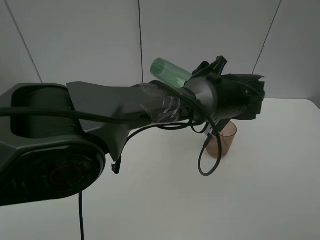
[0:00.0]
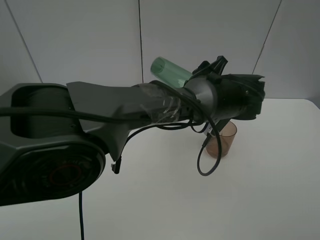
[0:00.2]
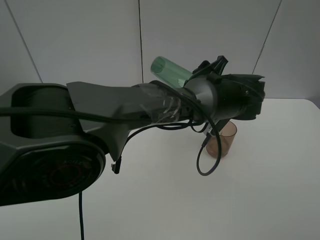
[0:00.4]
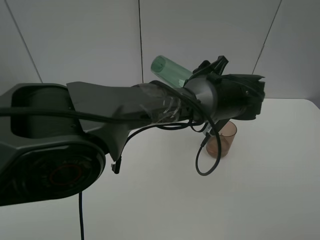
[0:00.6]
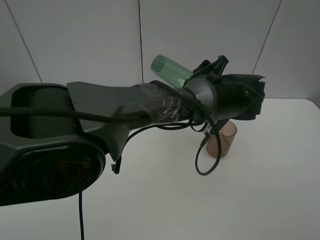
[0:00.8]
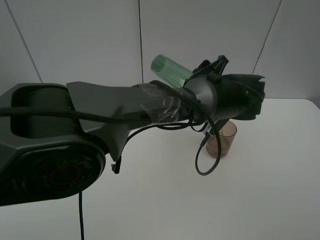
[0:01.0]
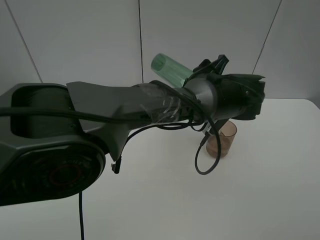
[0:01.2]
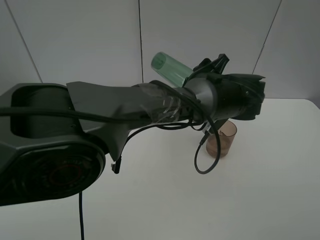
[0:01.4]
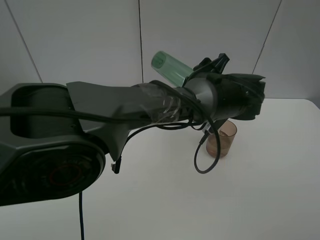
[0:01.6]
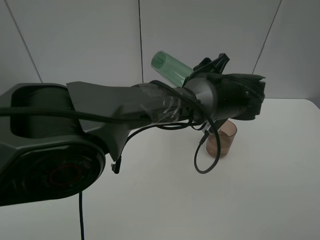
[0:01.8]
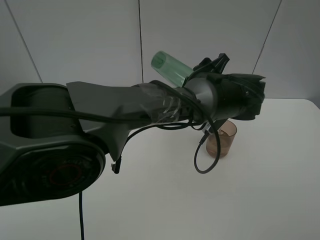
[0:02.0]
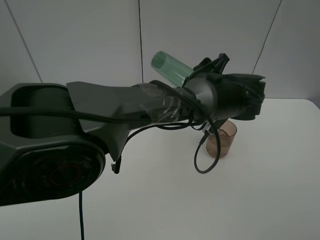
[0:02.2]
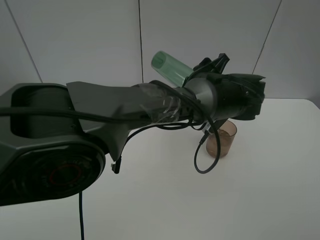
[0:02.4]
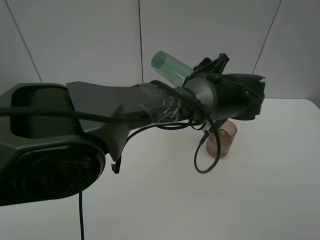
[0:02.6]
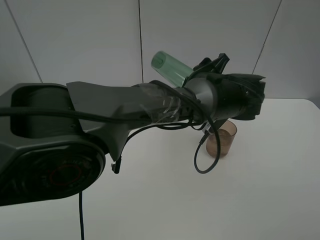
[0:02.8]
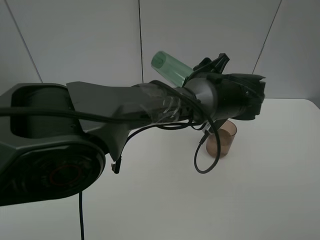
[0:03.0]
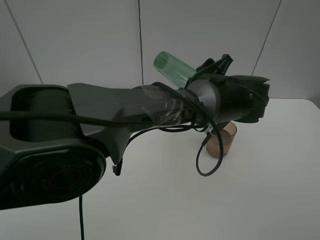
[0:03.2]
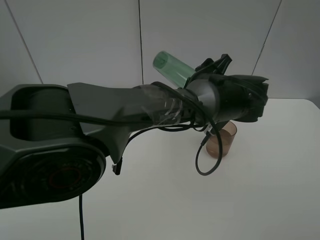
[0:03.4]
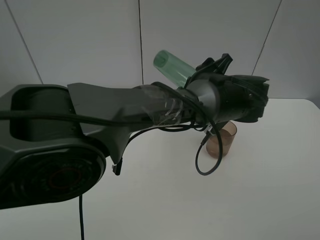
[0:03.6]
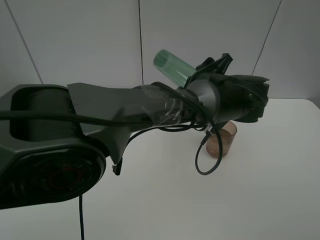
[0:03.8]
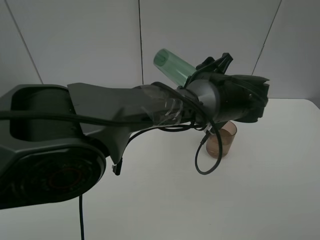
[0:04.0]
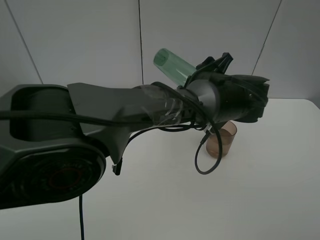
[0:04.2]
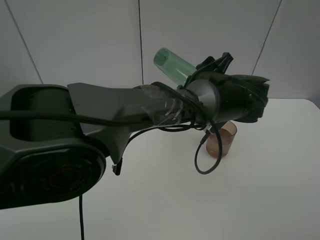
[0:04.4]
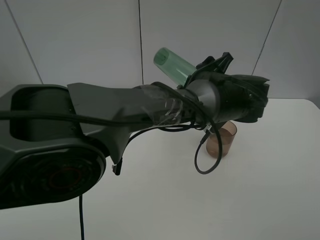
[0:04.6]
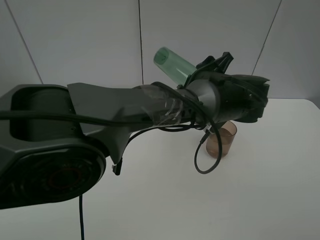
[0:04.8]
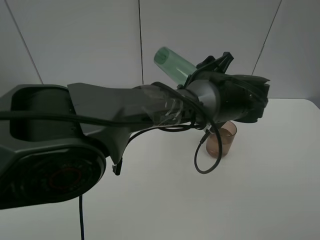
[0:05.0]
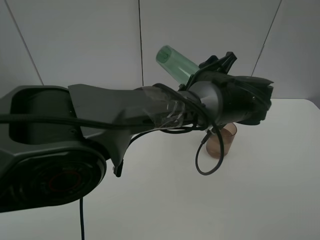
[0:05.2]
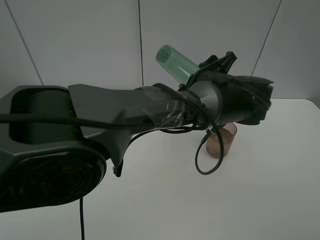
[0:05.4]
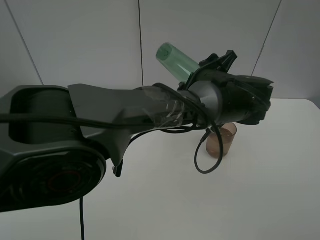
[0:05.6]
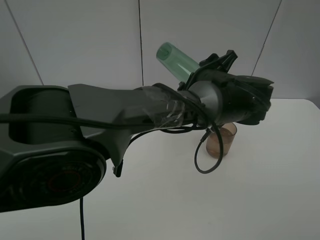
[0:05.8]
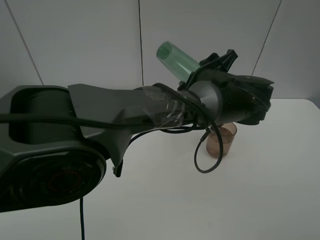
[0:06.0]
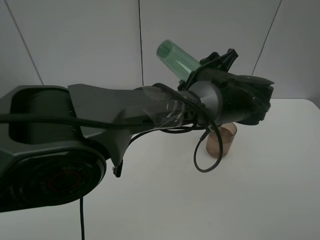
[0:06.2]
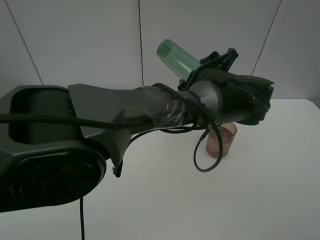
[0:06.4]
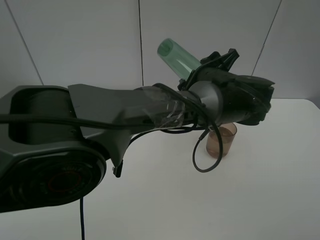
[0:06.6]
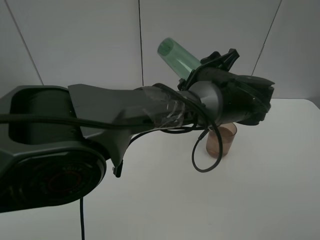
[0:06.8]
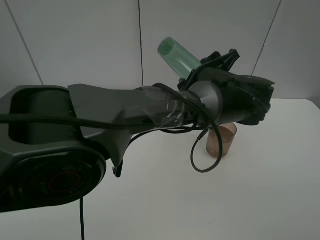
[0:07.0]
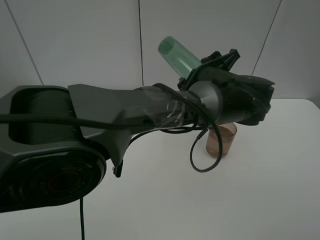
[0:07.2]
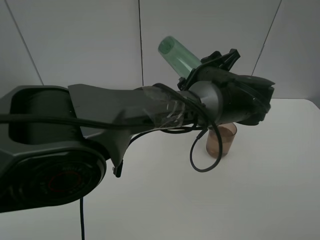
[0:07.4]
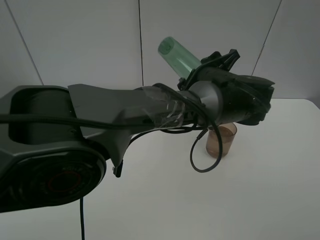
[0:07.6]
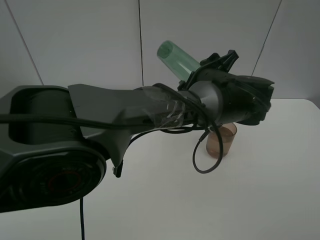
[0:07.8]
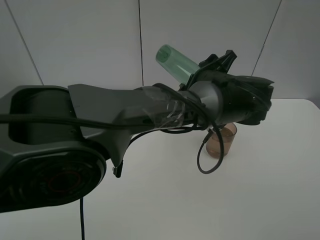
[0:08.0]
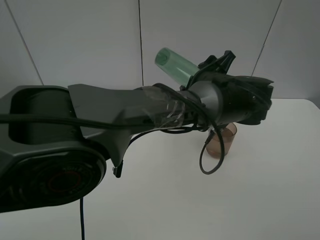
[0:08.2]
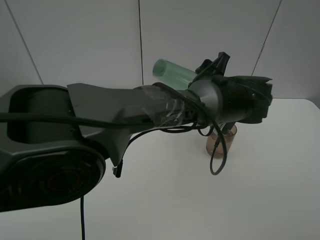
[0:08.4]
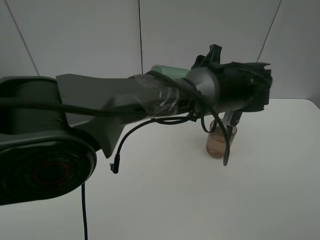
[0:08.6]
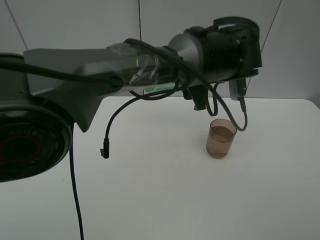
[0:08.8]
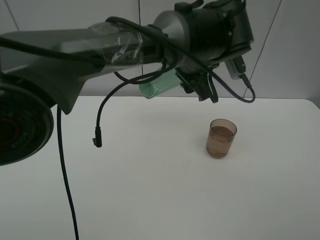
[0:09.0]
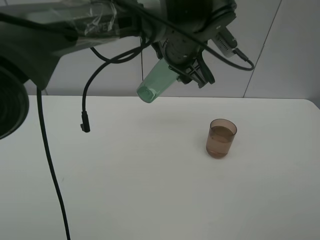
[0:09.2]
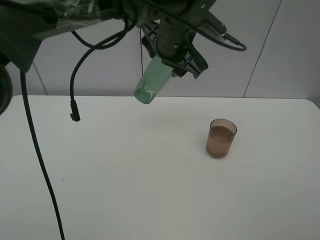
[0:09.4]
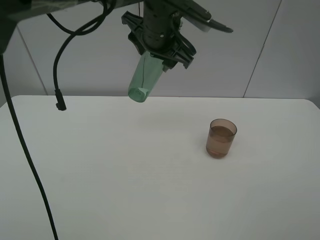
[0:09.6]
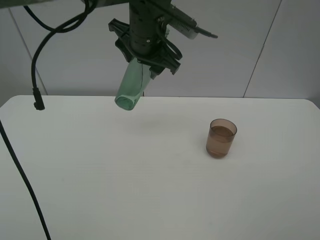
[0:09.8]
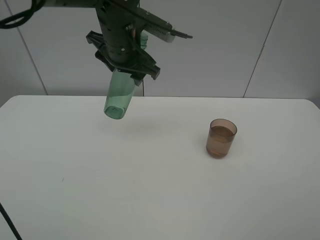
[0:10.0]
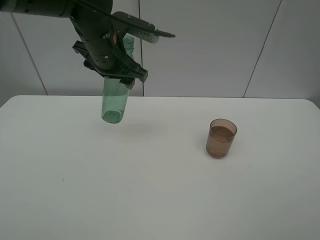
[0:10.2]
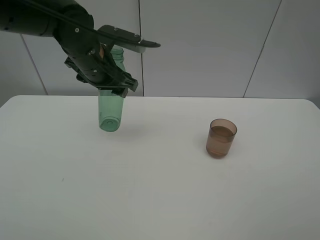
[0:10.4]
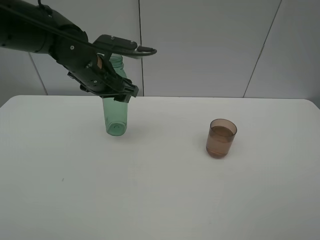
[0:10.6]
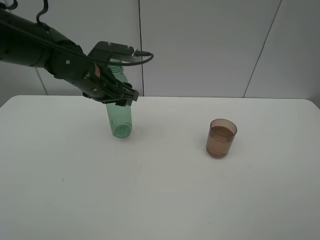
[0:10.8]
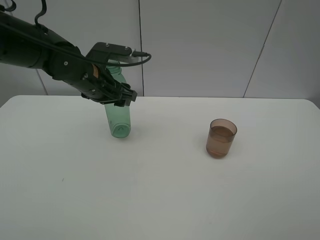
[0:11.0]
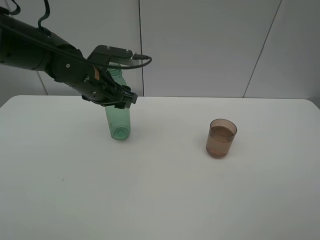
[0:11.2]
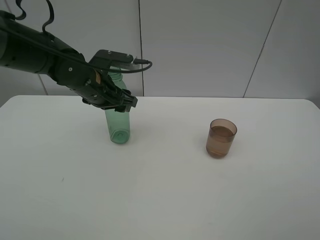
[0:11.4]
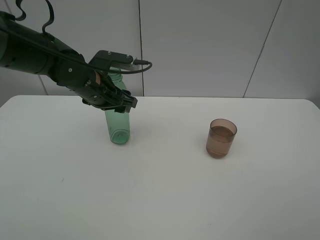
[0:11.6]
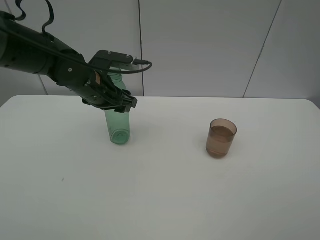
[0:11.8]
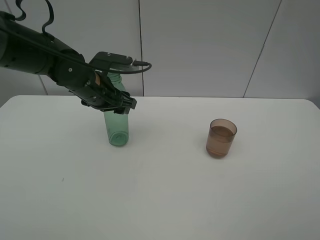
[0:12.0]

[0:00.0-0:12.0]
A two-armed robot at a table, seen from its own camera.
Task of the whole recording: pick up the bottle filled with water and pour it into the pink cup.
Step, 0:00.0 to 0:08.2: Pour water from green bottle to pink cup with the left gripper.
0:00.0 to 0:03.0: Both grippers stay about where they are.
0:03.0 to 0:04.4: The two grippers keep their place.
0:04.4 to 0:06.0: Both grippers stay put.
0:06.0 to 0:07.6: Neither gripper changes place.
0:07.6 to 0:09.0: The left gripper goes about 5 cm upward.
0:09.0 to 0:10.4: The left gripper heads to the left, covering some 20 cm.
0:10.4 to 0:12.0: The left gripper goes some 5 cm downward.

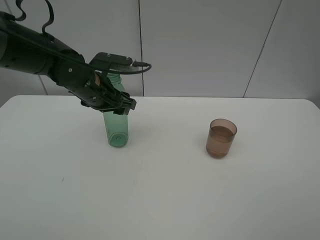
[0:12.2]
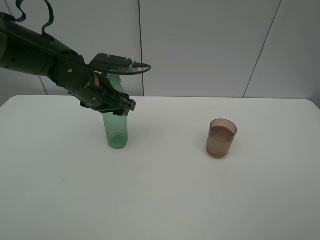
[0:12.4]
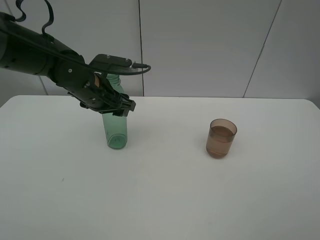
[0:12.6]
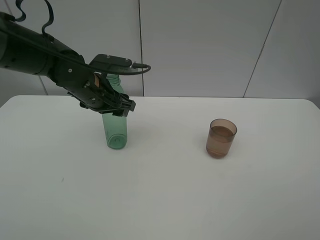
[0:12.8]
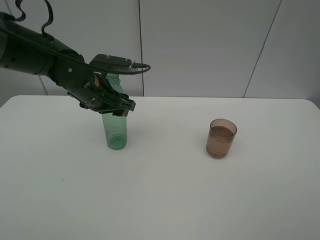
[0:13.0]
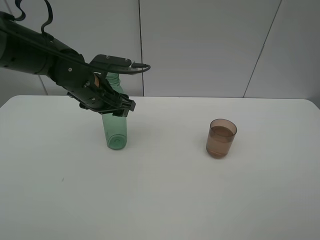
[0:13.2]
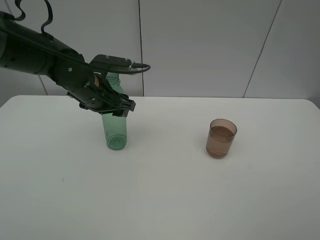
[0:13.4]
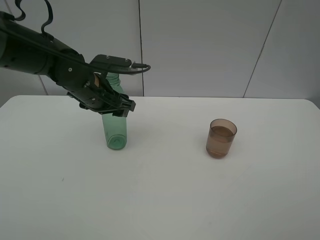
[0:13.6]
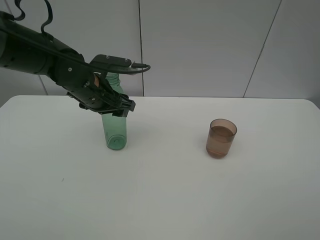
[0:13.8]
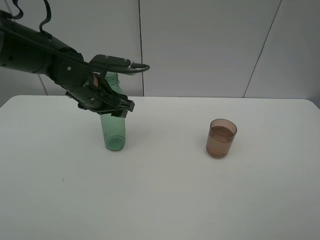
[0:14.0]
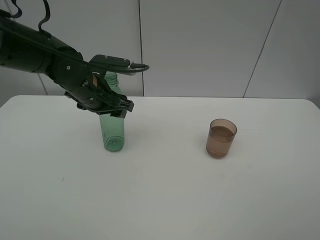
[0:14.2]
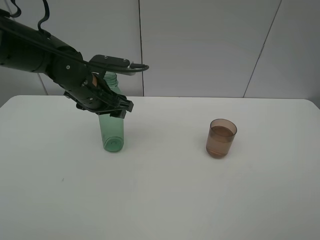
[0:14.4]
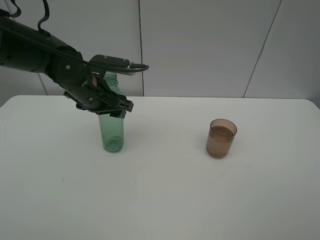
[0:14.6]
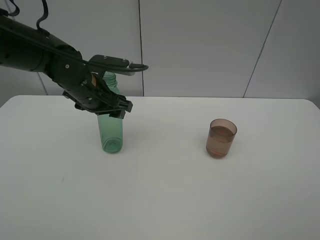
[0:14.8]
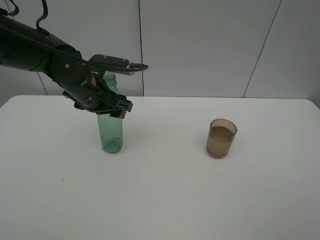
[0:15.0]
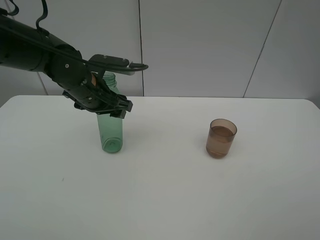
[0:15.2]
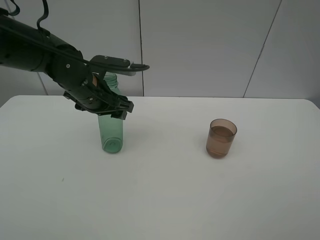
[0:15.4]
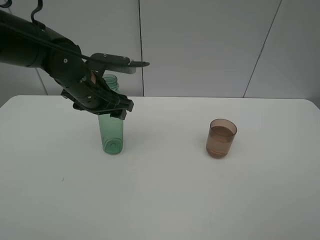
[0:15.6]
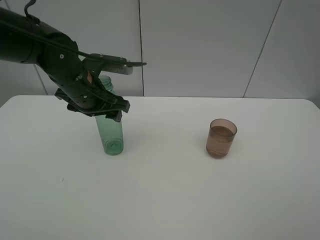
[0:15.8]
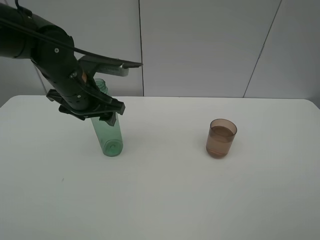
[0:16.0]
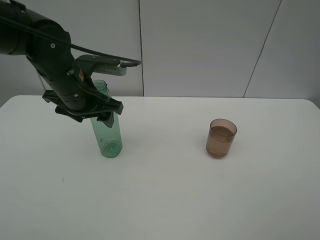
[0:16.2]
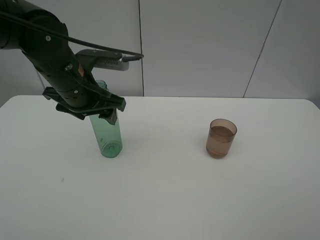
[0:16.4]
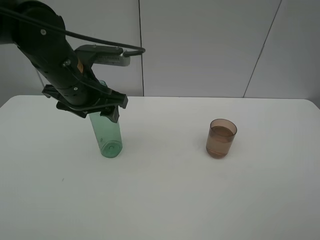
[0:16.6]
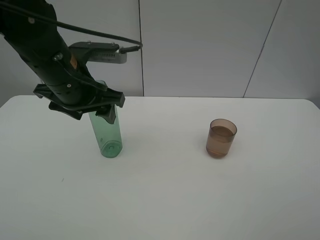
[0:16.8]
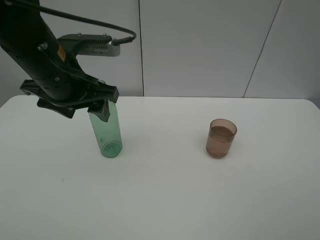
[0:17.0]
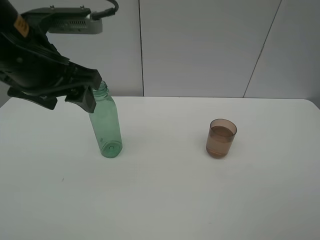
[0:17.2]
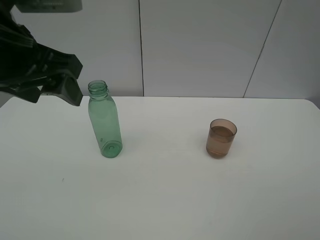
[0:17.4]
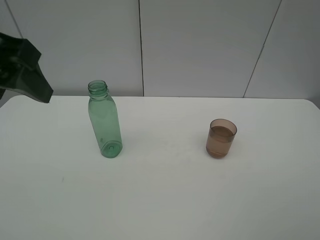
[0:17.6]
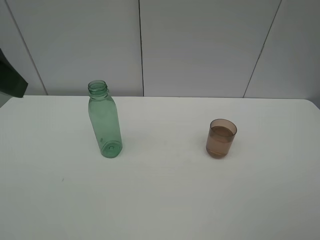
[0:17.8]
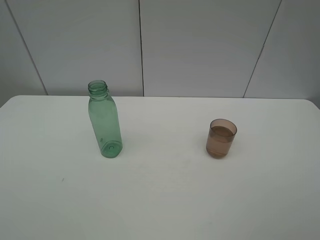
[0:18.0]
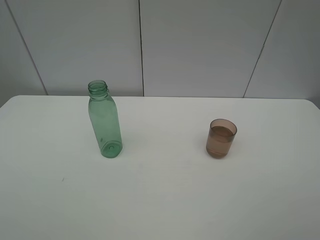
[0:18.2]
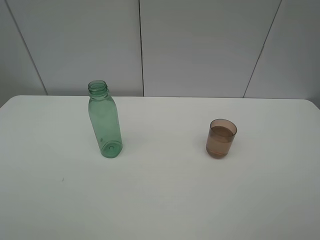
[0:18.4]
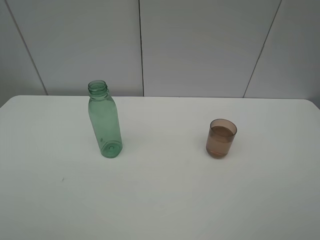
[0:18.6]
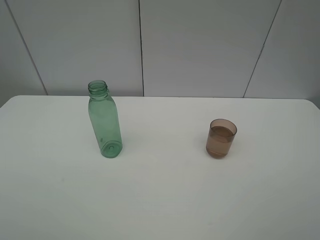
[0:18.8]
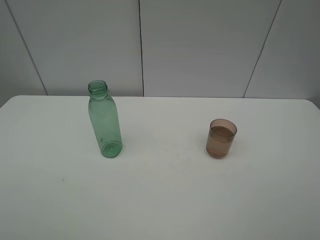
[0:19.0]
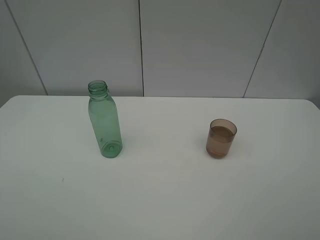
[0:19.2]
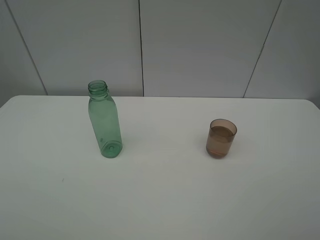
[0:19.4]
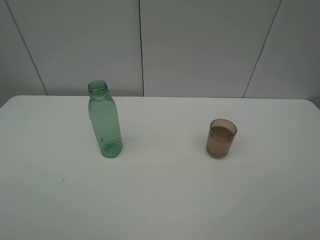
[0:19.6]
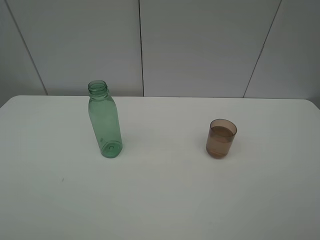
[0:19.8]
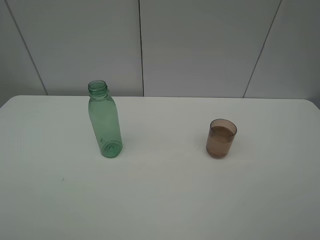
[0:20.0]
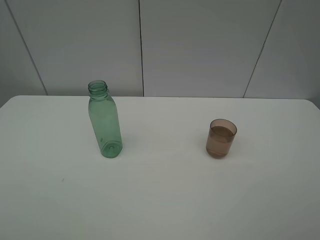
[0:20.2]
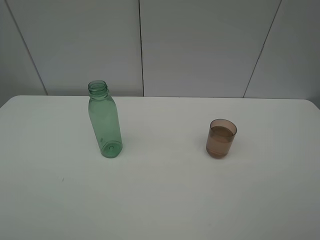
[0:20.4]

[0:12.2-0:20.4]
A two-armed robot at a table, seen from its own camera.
Task of the whole recording: pick up the bottle filled with water and pour it into the pink cup.
Step, 0:12.2 to 0:16.6: Place the green bottle with the left gripper.
0:12.2 to 0:13.8: Neither gripper changes place.
0:13.8 to 0:15.4: The left gripper opens.
0:15.4 to 0:17.2: The left gripper moves upward and backward, some 15 cm.
0:17.2 to 0:18.8: The left gripper heads backward and to the left, covering approximately 25 cm.
